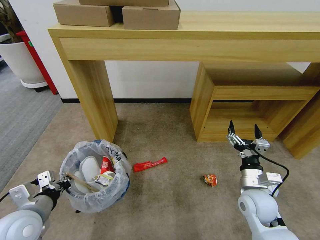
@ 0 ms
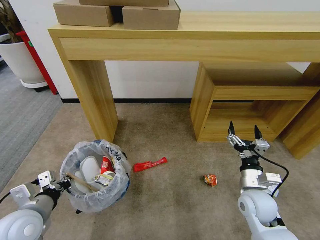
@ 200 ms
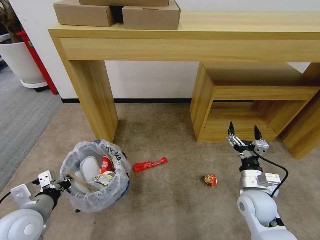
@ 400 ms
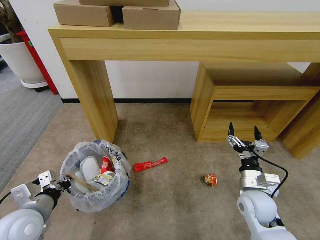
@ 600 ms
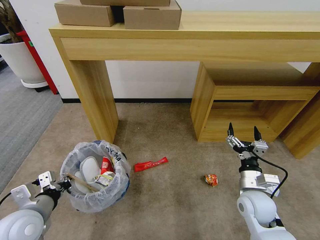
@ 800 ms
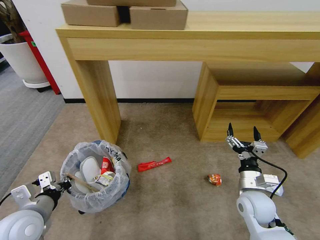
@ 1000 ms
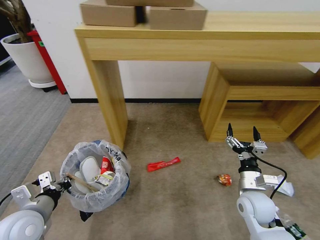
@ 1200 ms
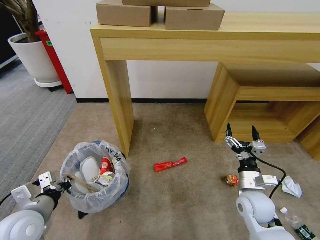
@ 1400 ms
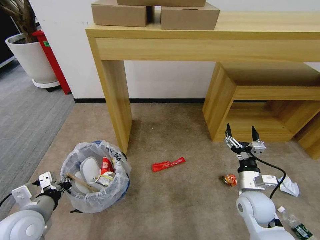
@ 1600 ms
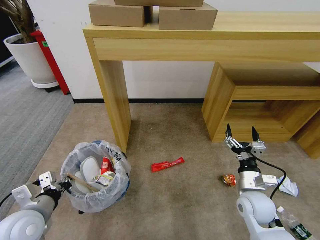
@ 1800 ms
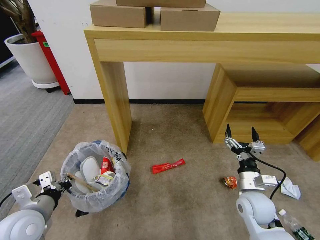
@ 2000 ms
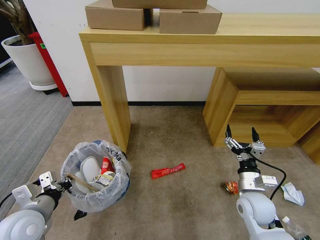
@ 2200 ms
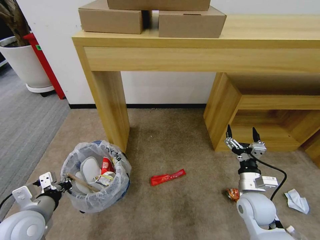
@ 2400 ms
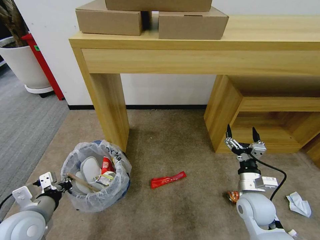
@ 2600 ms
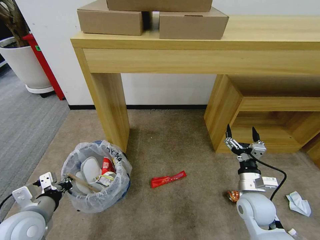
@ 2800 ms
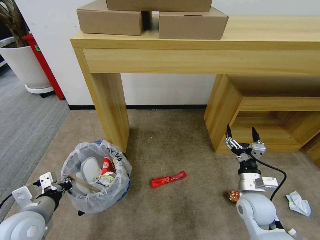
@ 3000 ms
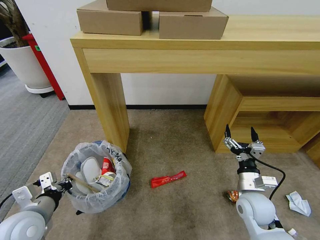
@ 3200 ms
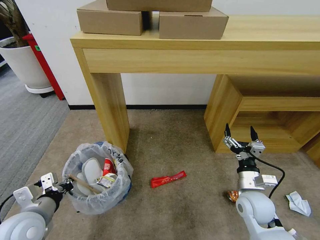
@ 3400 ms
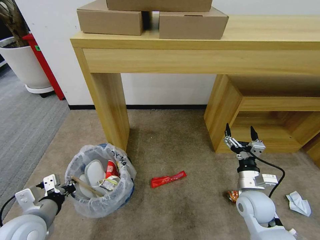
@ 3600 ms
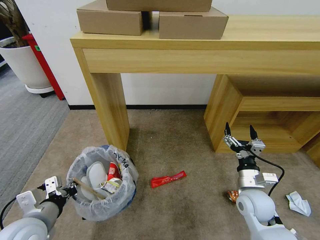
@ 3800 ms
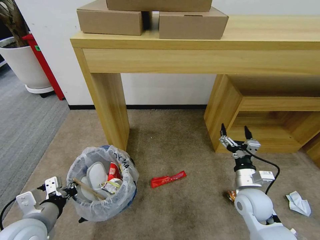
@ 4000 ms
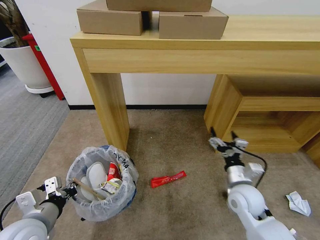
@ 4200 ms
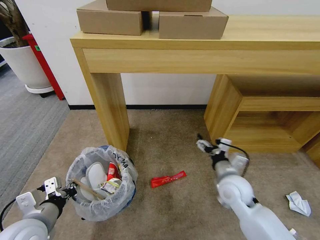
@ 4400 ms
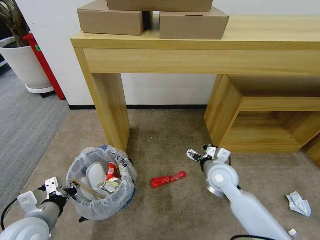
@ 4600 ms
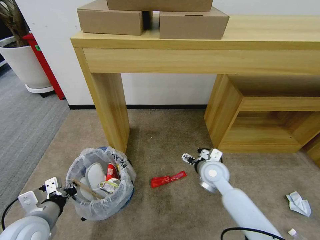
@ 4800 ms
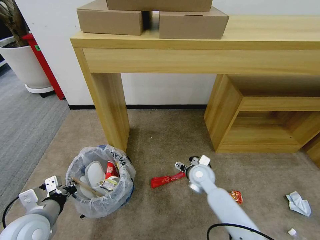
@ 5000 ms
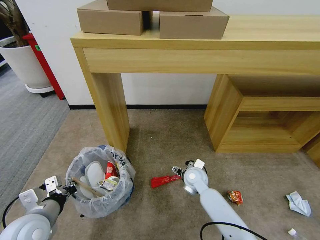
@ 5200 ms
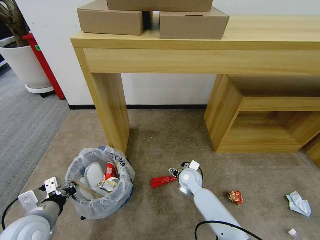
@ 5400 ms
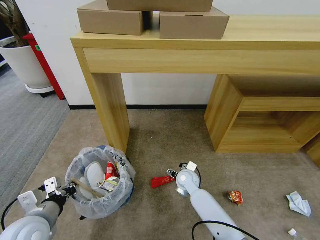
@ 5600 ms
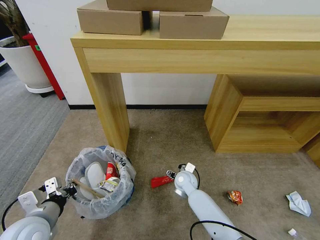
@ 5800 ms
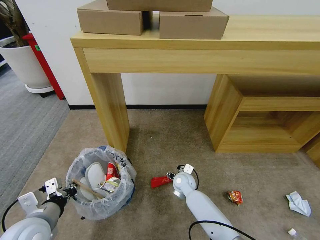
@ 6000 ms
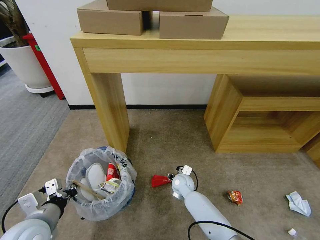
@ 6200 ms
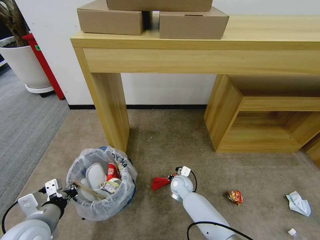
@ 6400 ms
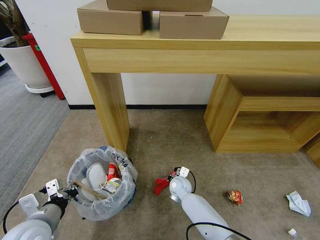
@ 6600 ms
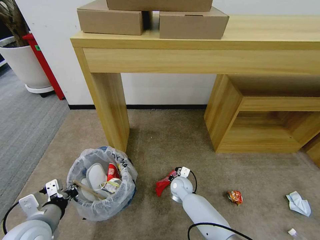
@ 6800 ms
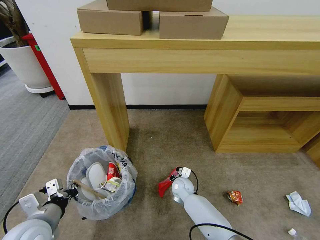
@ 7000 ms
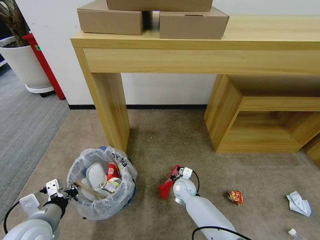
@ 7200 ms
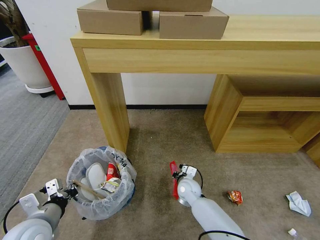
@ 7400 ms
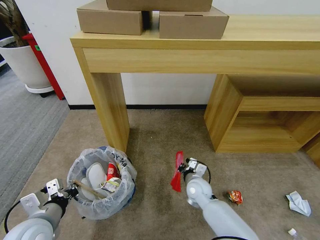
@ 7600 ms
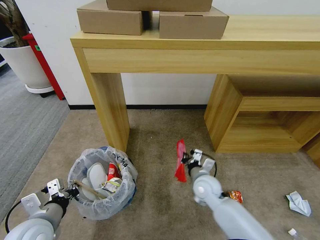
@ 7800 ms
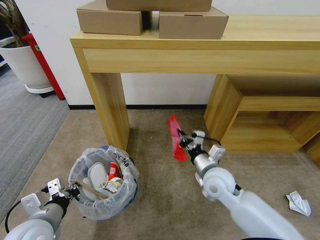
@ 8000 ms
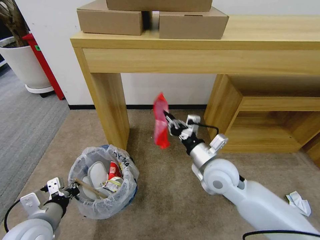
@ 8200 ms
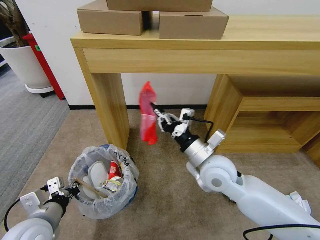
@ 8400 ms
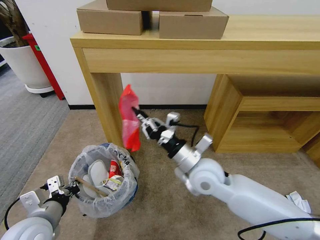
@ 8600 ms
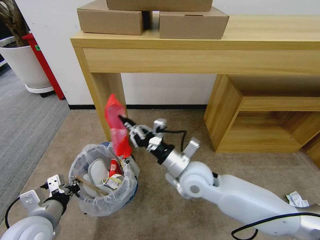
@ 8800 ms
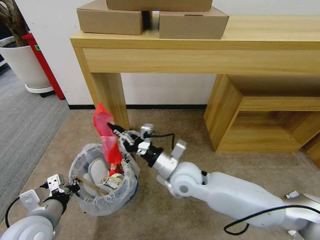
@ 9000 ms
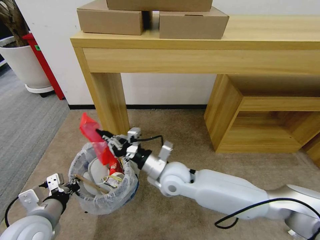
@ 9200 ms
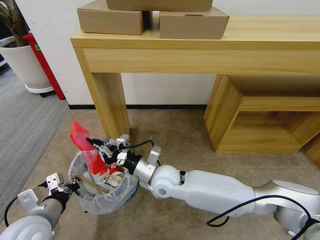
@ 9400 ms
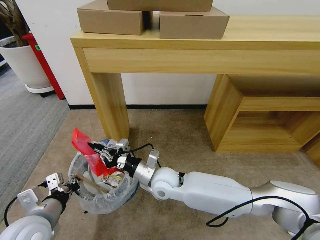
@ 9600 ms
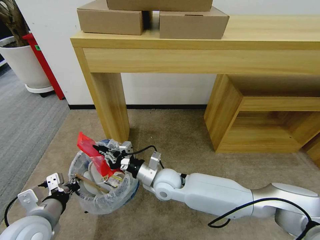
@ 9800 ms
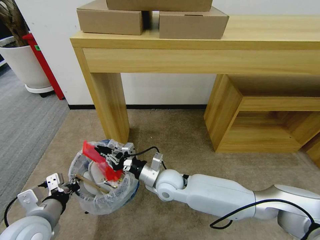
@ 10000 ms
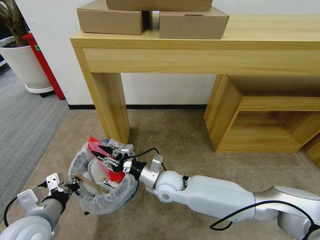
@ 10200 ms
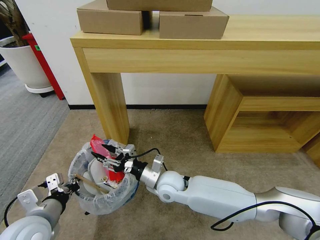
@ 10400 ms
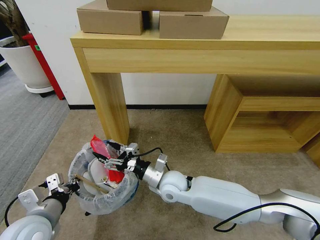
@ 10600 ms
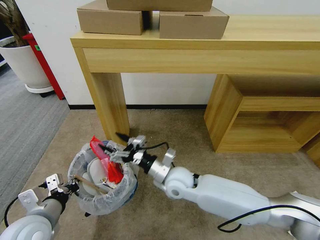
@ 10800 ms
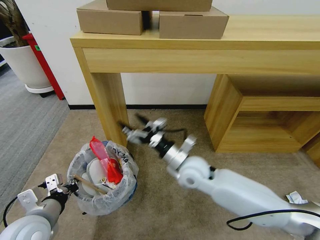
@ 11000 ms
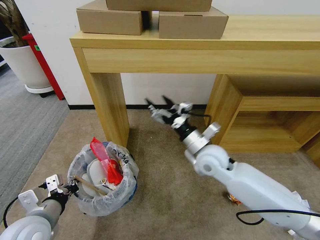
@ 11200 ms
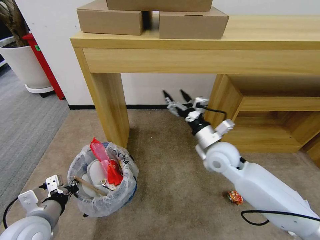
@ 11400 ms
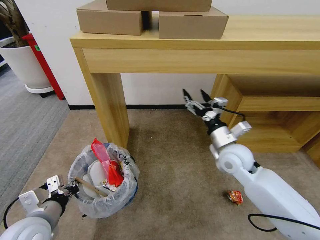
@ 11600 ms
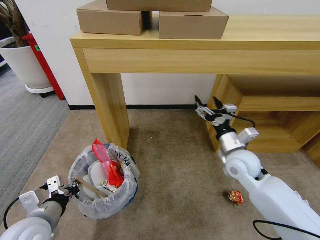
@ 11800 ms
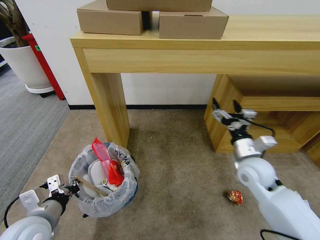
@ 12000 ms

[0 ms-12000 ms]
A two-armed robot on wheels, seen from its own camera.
Task of the whole recording: Pick up the trash bin and place the garbage on the floor into it.
3000 ms to 4400 ms: The right gripper shifts some 5 cm to the left.
4400 ms to 6000 ms: The right gripper moves downward, to the left and forward, roughly 20 cm.
6000 ms to 7600 ms: The right gripper shifts by some 5 cm, and closes.
7600 ms to 9000 ms: The right gripper shifts some 20 cm upward and to the left.
9000 ms to 10400 ms: The right gripper travels downward by roughly 10 cm, and opens.
10400 ms to 12000 ms: The right gripper moves to the right, approximately 25 cm, and opens its fingers.

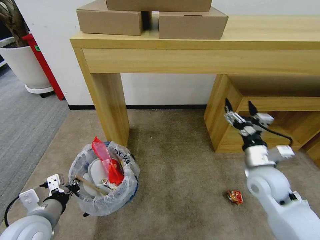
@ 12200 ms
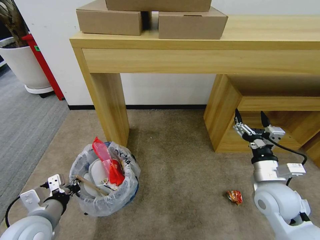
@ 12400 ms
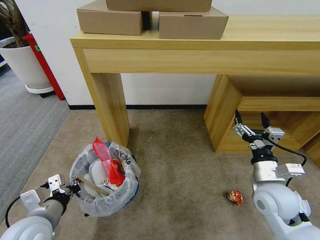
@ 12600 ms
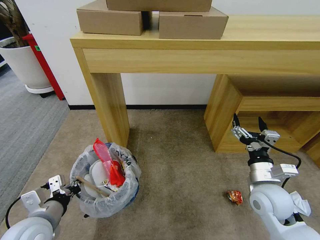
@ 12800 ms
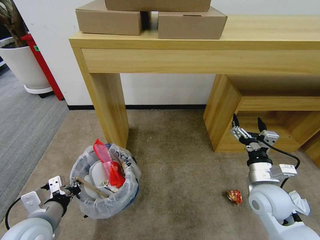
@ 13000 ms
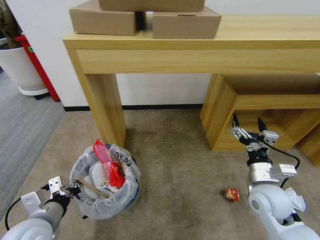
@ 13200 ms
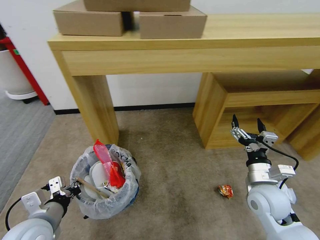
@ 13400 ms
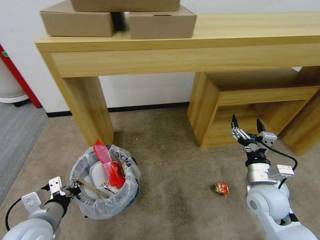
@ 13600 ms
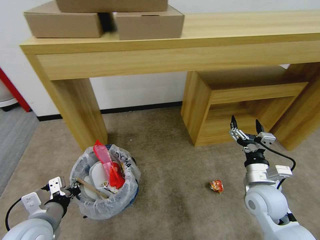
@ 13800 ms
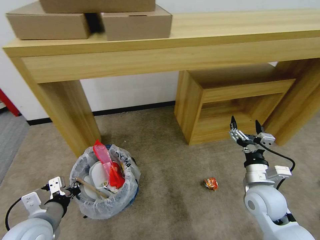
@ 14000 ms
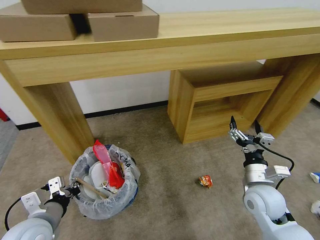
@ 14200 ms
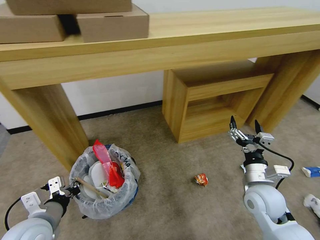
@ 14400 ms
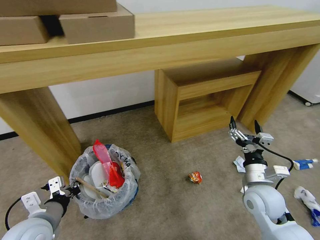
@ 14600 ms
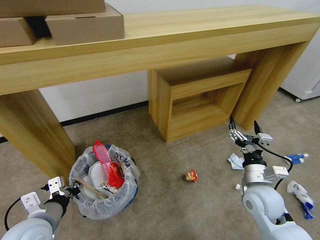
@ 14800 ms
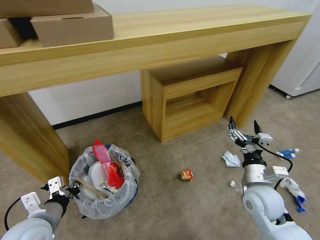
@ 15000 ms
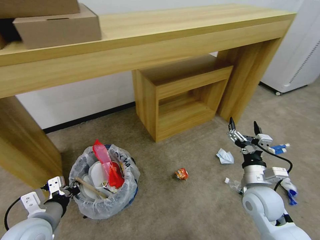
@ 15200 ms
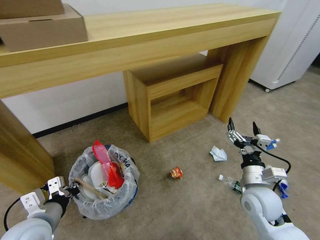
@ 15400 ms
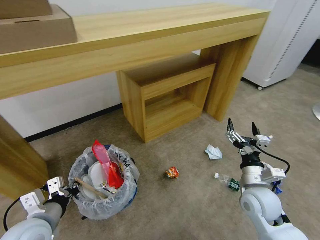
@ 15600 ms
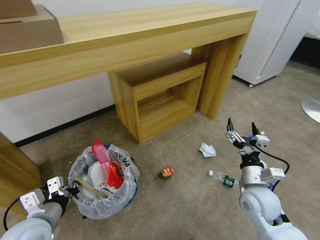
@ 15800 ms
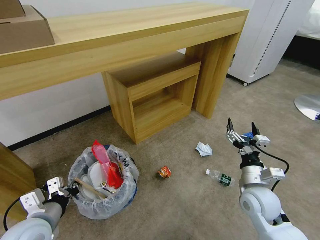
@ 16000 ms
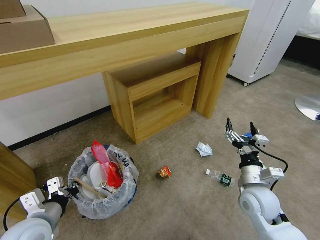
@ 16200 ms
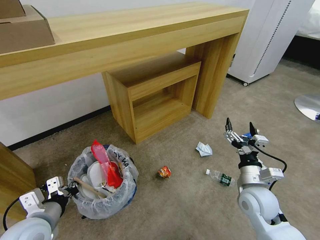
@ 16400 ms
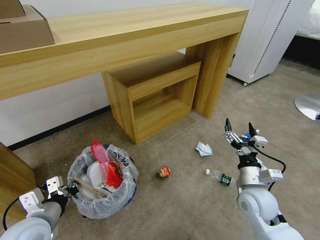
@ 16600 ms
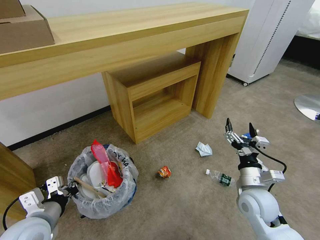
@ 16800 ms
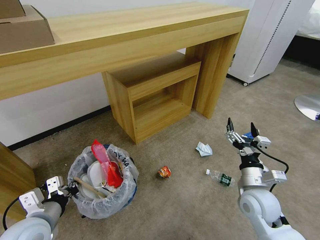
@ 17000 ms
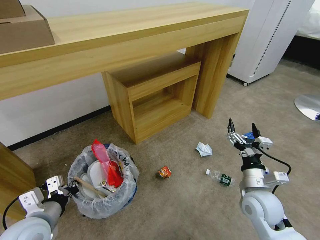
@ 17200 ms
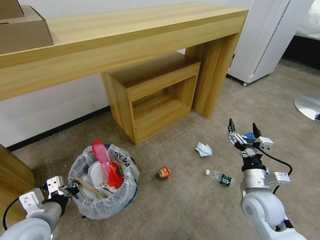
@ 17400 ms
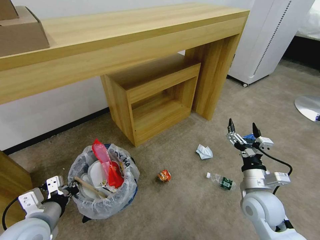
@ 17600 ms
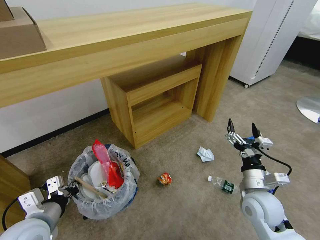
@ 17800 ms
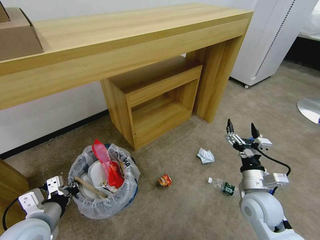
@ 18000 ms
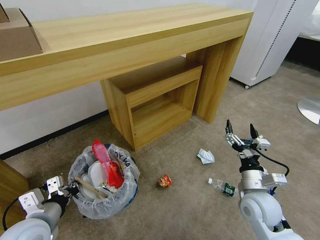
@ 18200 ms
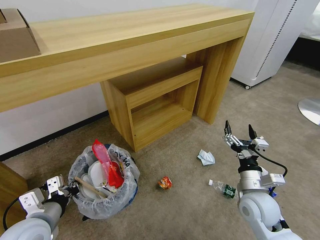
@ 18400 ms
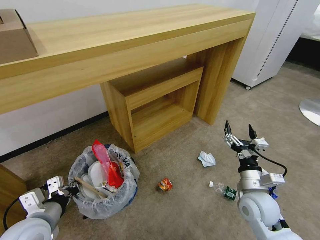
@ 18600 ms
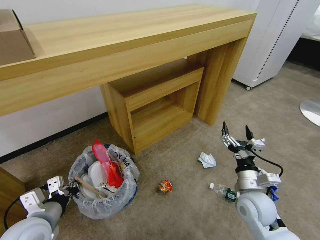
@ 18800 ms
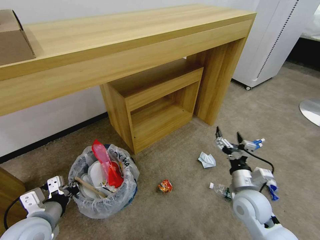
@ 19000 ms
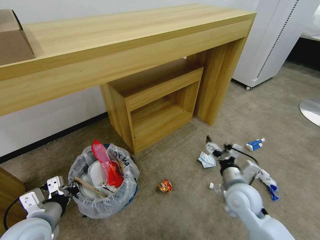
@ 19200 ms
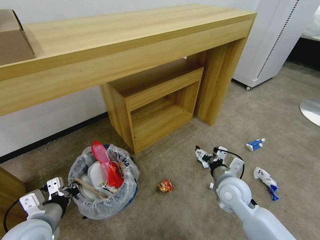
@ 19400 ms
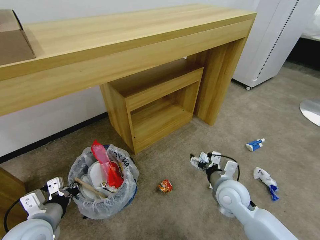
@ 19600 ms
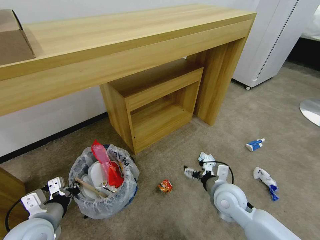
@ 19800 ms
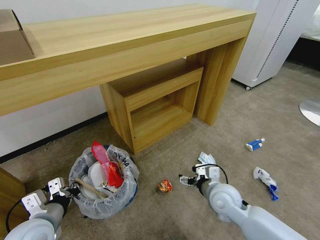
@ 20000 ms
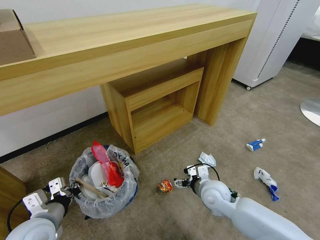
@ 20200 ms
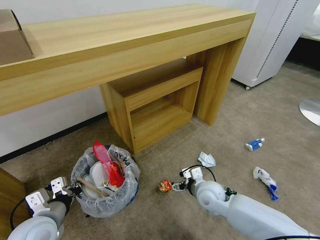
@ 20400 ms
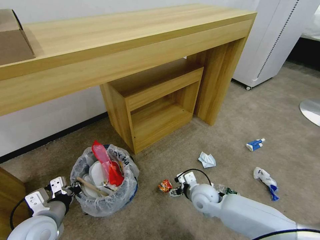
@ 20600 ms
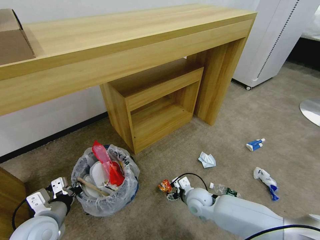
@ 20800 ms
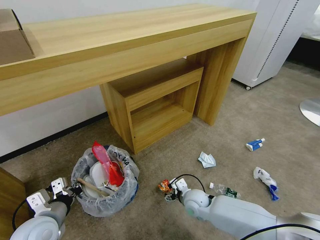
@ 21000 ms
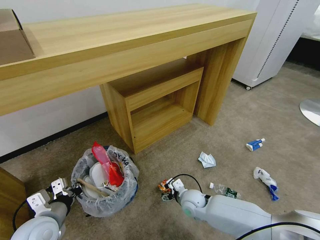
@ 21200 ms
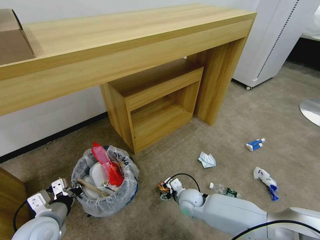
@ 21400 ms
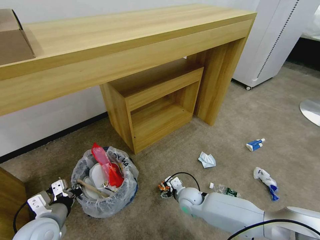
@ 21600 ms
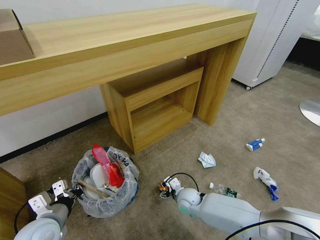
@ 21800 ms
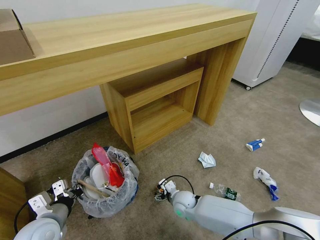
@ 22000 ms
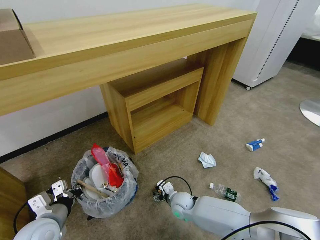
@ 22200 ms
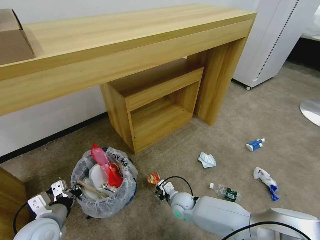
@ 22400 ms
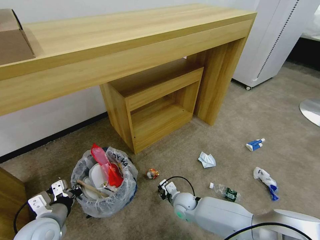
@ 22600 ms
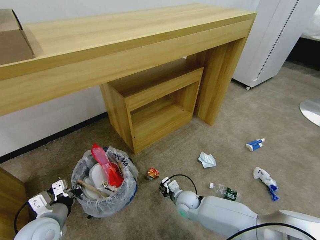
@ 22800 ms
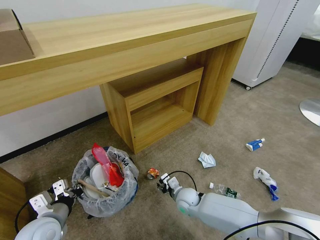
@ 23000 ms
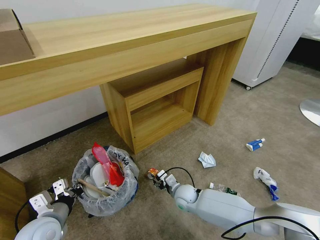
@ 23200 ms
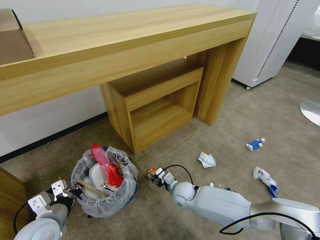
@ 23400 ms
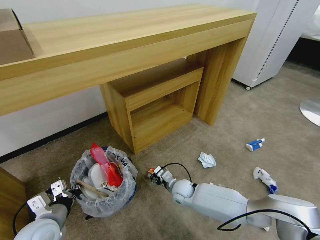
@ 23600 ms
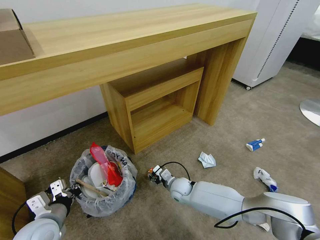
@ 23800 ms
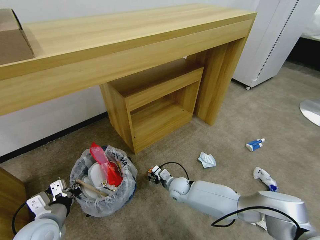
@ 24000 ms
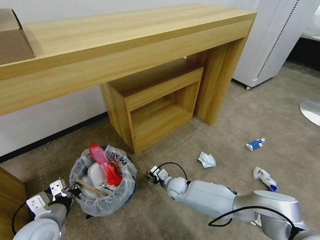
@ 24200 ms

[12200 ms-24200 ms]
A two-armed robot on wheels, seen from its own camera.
Task of the whole recording: Pick up the trash bin and place the garbage on the floor into it.
16600 ms to 18200 ms: There are only small adjustments of the grippers.
18200 ms to 19800 ms: The right gripper goes approximately 5 cm to the left.
19800 ms to 21200 ms: The right gripper shifts some 15 cm downward and to the left.
21200 ms to 22600 ms: The right gripper shifts by some 5 cm, and closes its fingers.
22600 ms to 24200 ms: The right gripper is displaced forward by approximately 5 cm.
